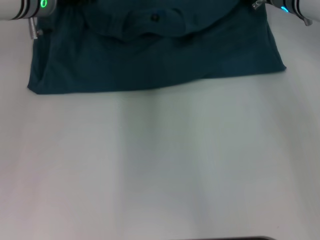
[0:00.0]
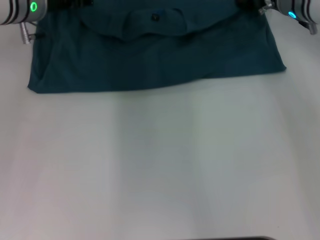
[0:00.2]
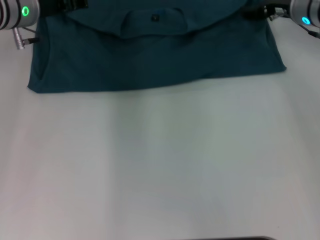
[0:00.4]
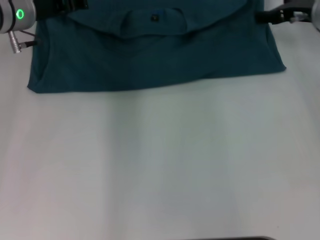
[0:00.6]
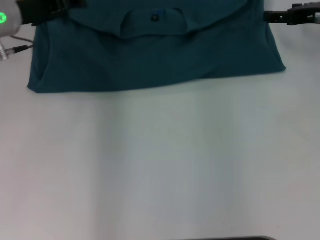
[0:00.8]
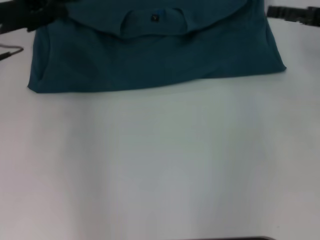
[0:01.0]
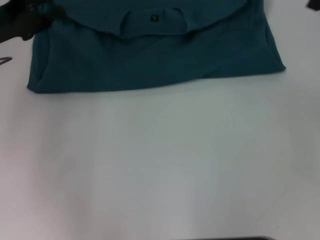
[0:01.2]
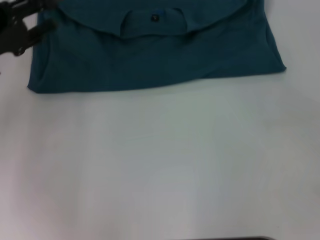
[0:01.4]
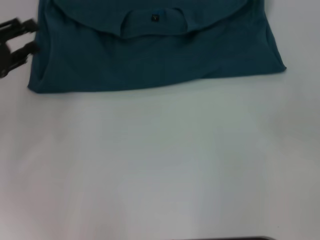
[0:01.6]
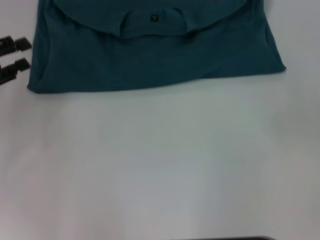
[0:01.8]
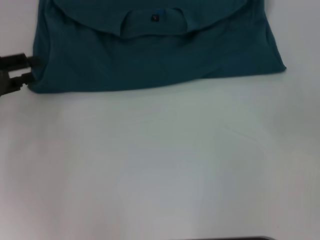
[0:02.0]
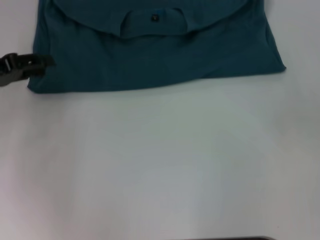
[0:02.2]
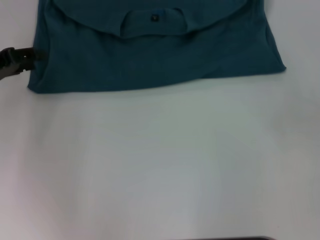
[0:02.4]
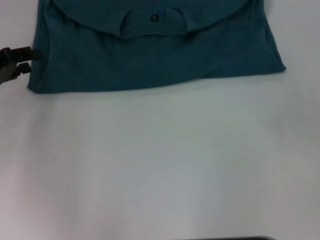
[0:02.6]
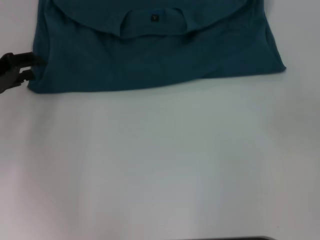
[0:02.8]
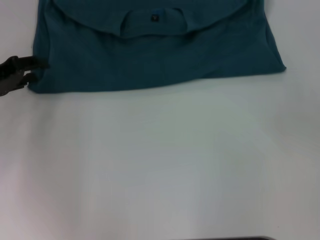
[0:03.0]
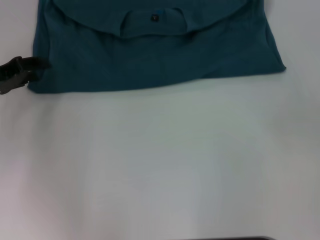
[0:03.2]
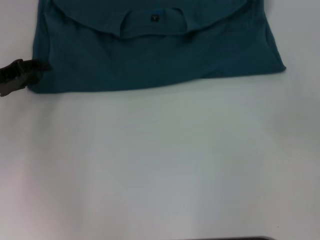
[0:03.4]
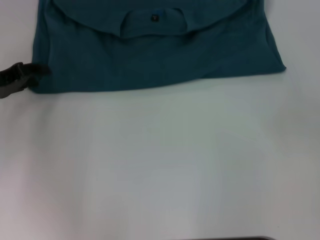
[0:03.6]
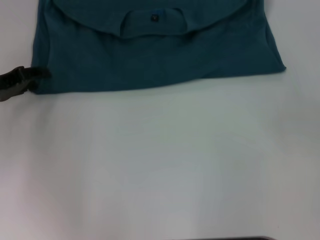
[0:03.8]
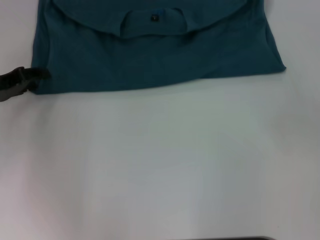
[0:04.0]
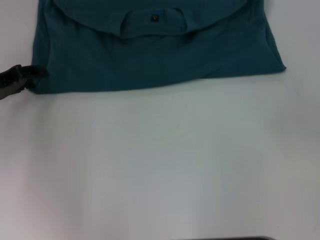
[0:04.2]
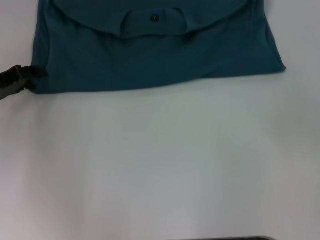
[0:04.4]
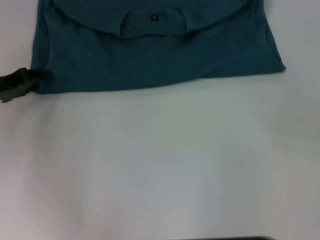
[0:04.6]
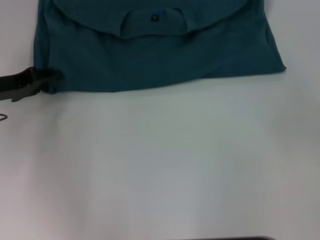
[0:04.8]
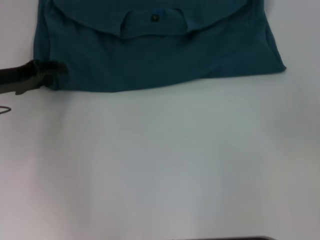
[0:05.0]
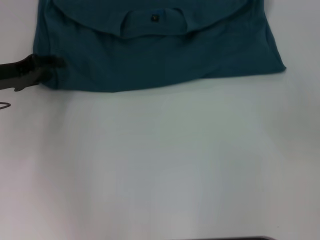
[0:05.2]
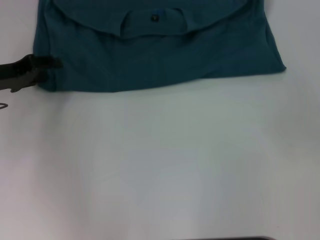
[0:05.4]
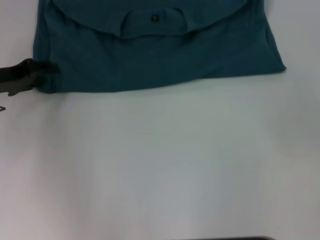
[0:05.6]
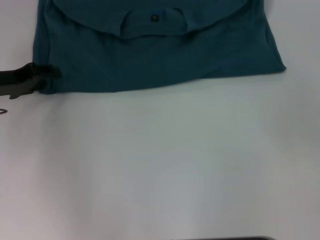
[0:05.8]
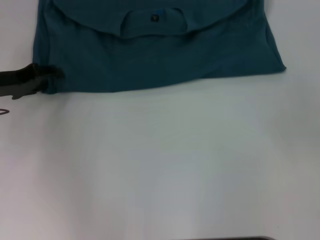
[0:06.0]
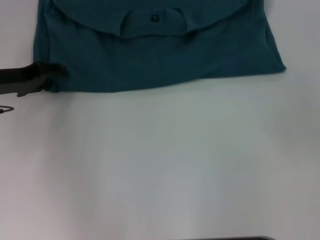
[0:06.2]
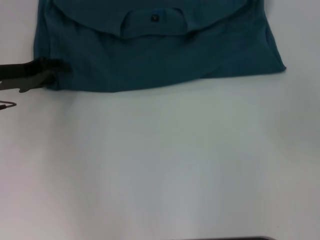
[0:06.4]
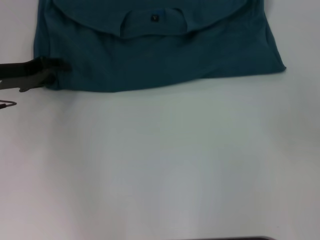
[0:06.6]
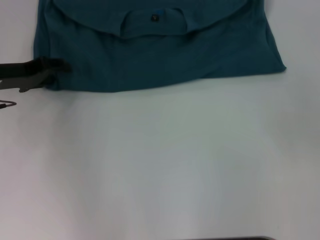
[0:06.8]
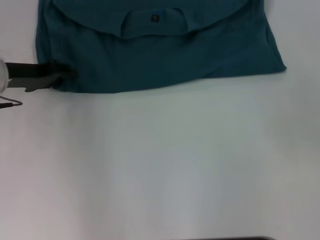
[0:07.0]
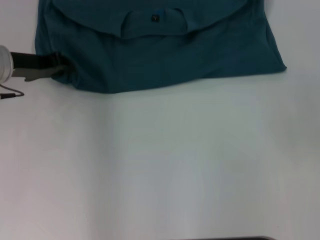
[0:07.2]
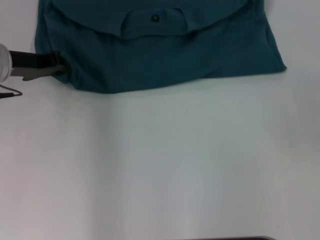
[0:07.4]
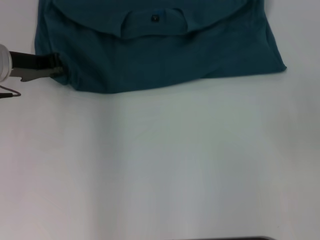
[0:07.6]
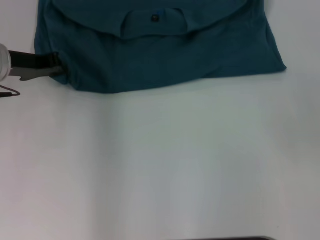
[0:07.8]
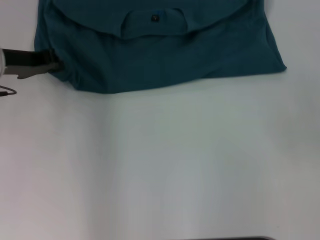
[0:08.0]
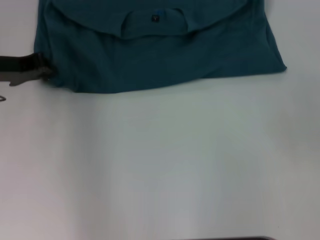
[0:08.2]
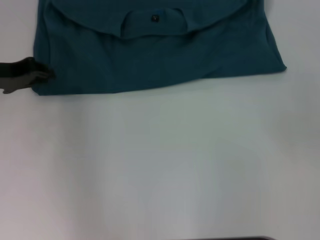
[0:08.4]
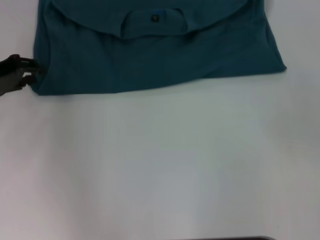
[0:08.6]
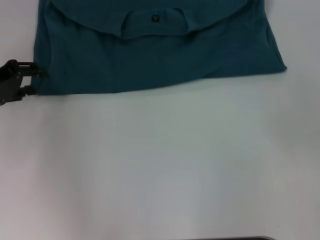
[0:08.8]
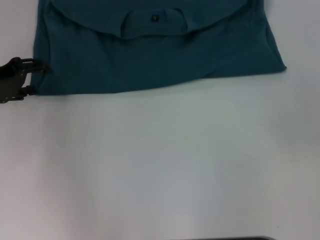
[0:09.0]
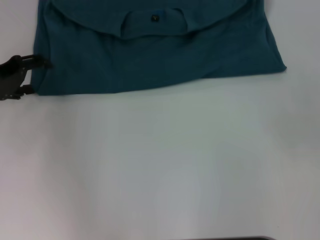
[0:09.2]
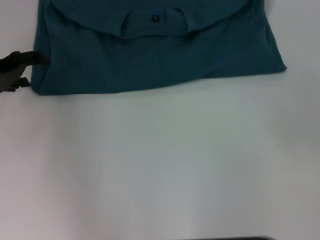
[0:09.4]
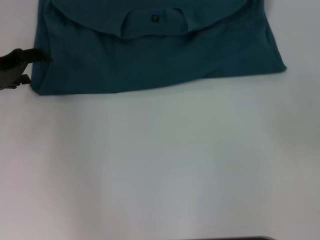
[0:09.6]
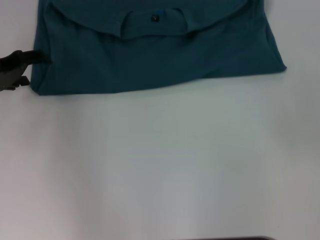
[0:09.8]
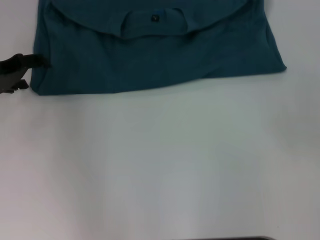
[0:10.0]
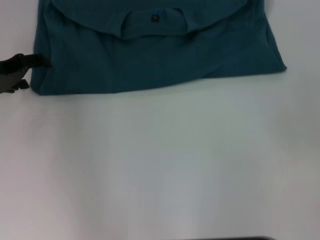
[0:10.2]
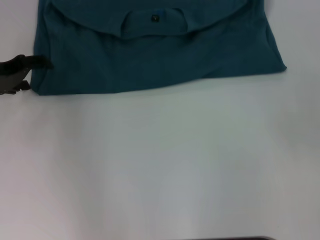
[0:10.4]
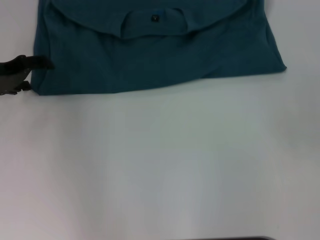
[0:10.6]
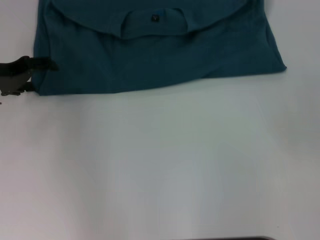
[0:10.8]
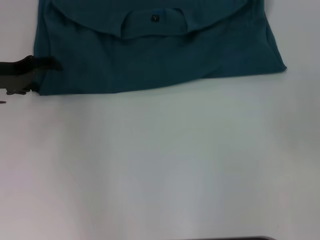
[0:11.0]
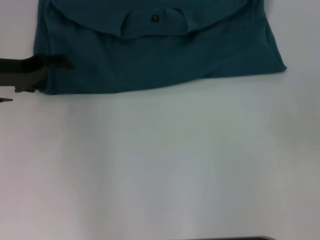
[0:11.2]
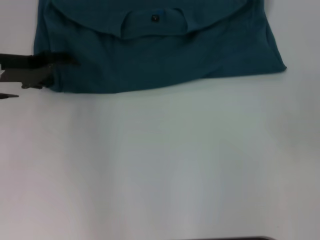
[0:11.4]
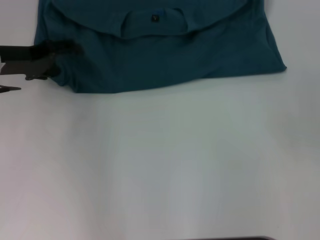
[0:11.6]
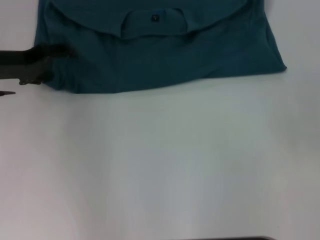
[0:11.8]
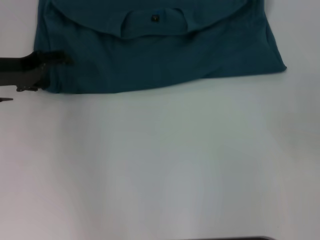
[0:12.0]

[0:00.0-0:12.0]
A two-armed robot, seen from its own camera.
0:00.0 to 0:01.6: The left gripper heads to the left and backward, covering roughly 20 cm; the right gripper heads backward and to the right, covering roughly 30 cm, and opens up.
0:06.0 to 0:07.6: The left gripper ends up about 5 cm from where it was, and closes its fingers.
0:07.6 to 0:09.0: The left gripper moves to the left, approximately 5 cm, and opens.
0:09.0 to 0:10.4: The left gripper opens.

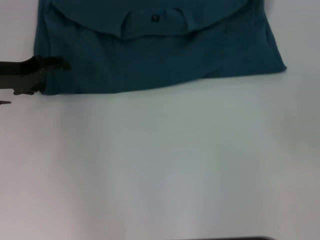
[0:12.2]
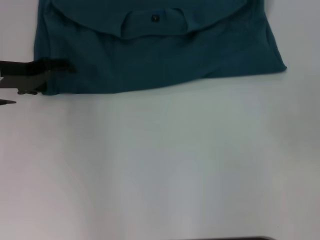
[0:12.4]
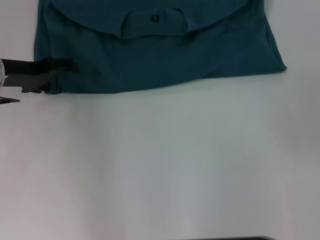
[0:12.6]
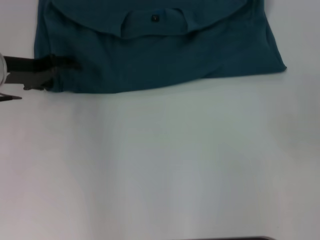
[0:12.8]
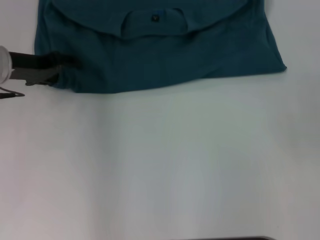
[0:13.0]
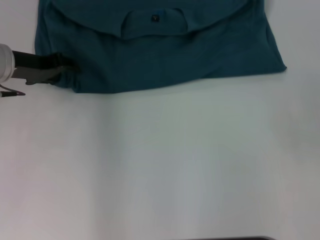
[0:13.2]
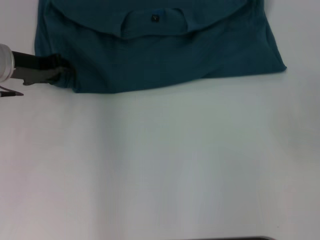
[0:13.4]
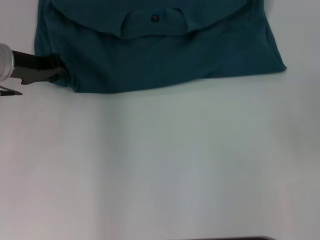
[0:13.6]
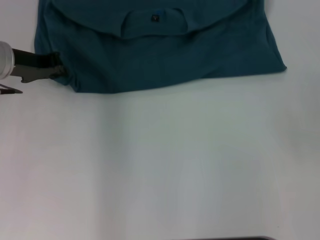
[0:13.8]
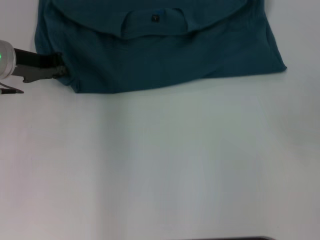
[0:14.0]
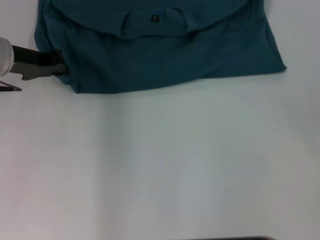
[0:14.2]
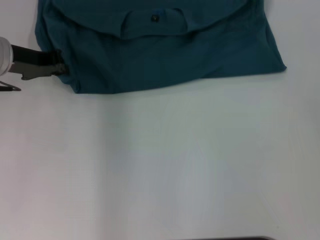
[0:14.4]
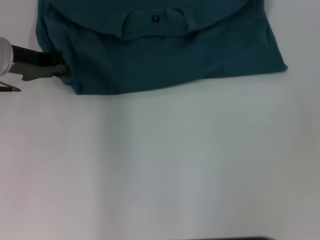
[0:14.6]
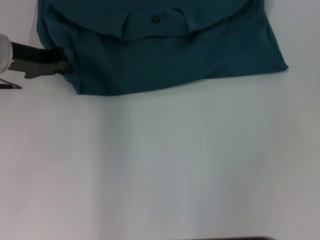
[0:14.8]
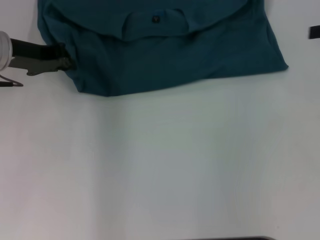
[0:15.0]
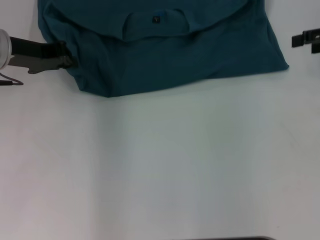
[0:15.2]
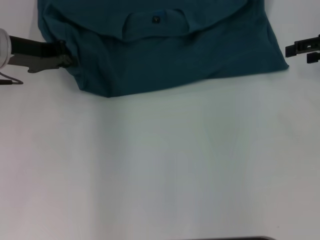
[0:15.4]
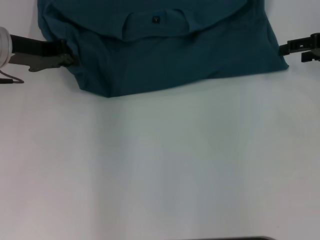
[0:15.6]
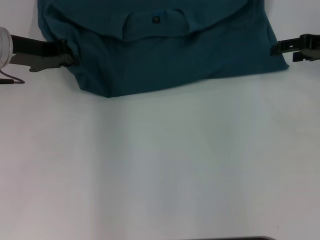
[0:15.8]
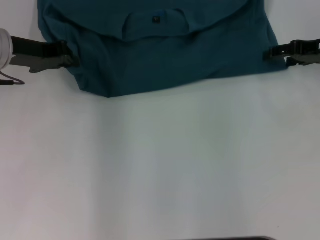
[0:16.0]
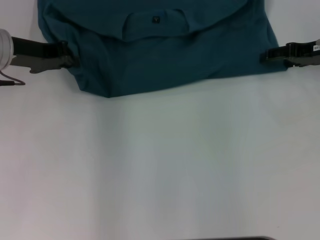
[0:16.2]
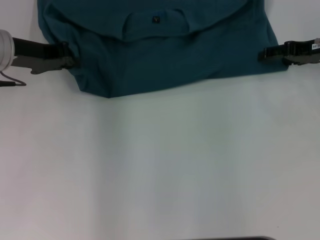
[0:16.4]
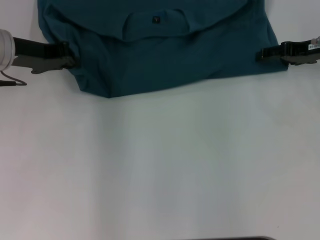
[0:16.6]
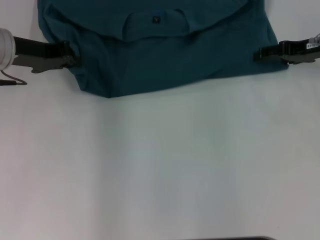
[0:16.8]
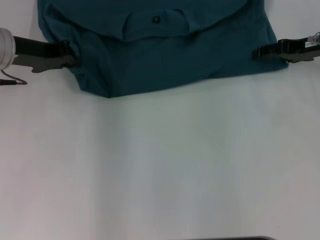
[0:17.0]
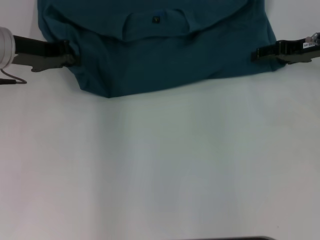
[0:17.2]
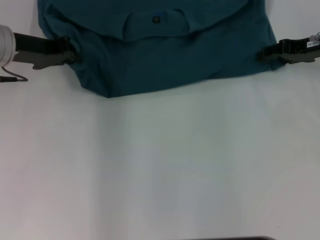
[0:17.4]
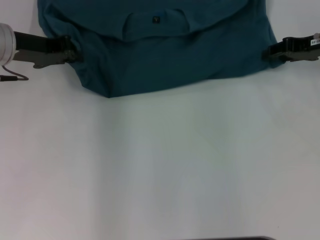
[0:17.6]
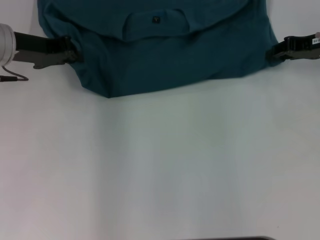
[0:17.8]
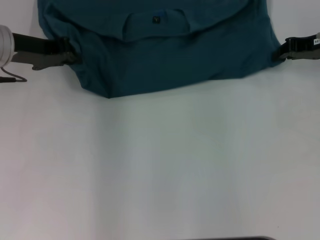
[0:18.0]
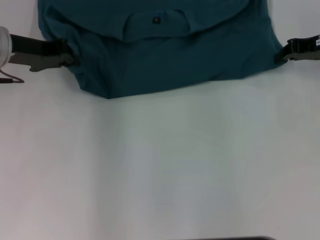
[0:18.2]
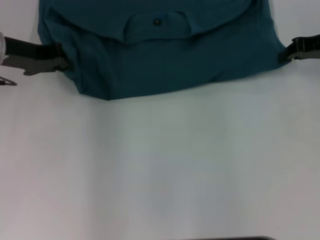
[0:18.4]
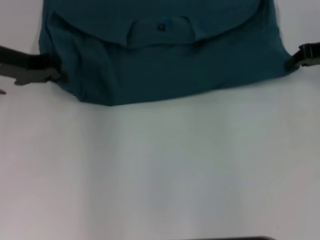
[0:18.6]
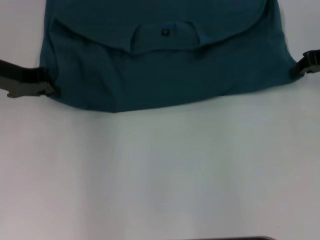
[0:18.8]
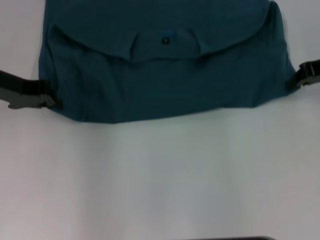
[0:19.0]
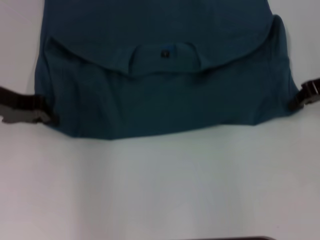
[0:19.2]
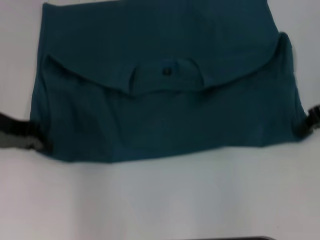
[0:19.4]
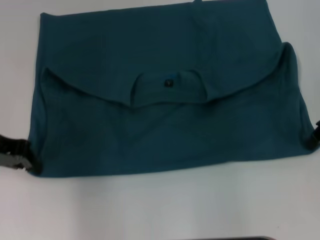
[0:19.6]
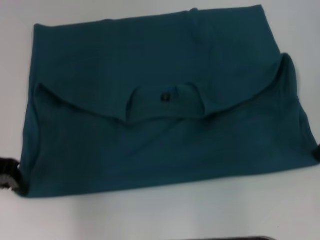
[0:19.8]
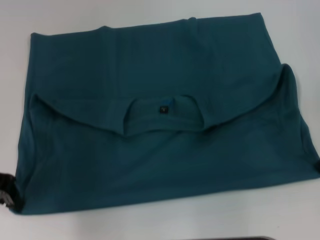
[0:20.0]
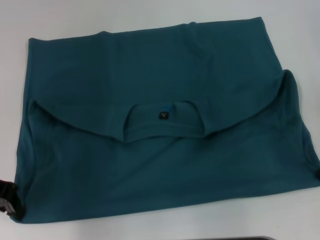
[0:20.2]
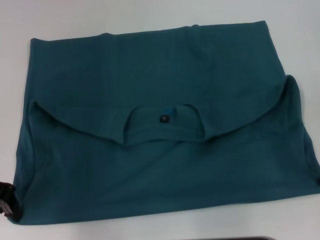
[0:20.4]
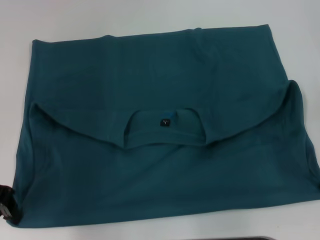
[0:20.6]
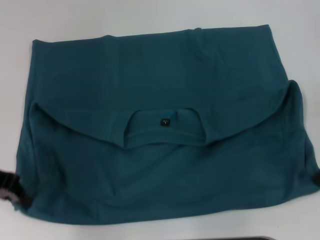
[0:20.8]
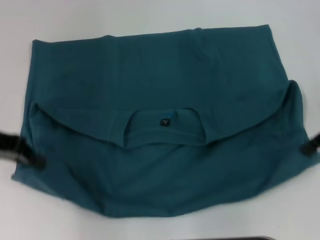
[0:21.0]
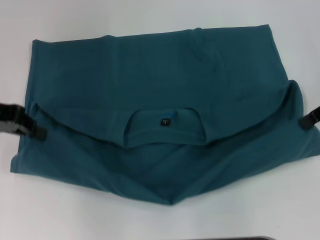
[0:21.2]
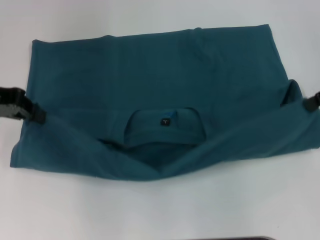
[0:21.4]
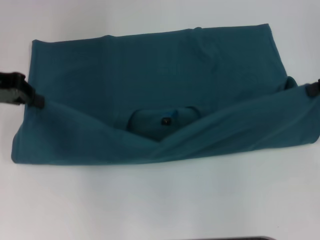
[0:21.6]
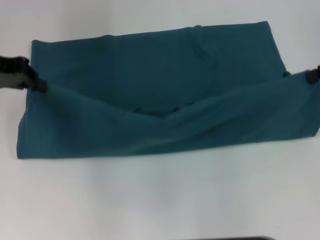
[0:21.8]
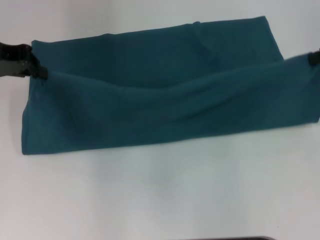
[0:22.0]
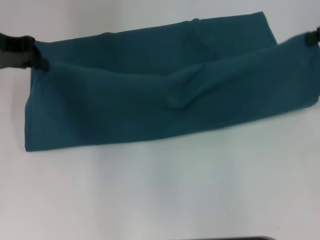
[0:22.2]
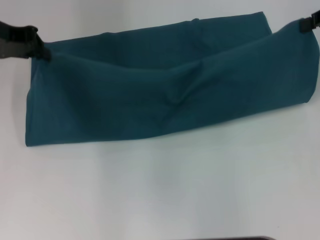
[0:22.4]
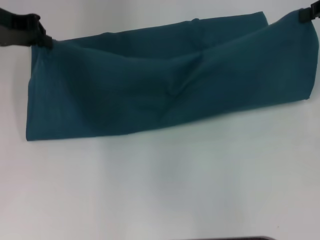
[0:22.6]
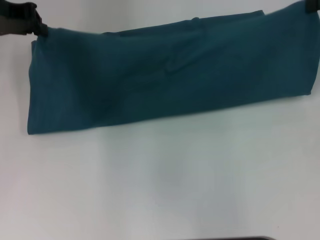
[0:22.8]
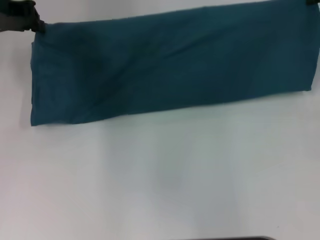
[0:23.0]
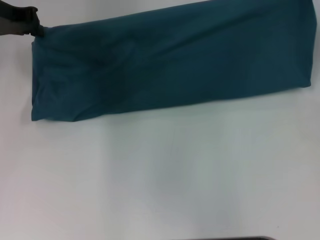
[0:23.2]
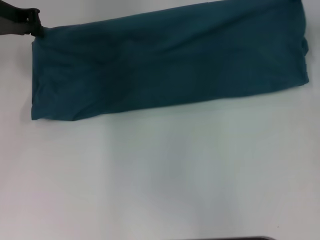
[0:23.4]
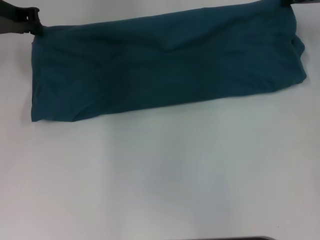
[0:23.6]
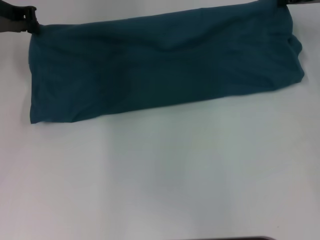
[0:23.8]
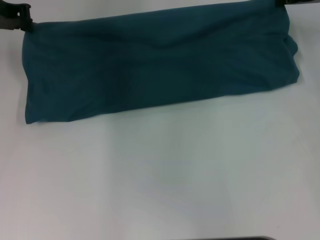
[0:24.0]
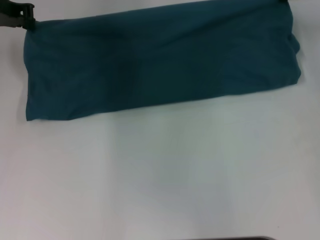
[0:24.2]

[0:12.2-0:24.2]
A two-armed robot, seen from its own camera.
Step, 0:12.2 to 0:20.6: Pull the clothes with your left hand.
Step, 0:12.2 to 0:20.6: Pull the clothes with your right hand.
0:12.2 to 0:13.8: The left gripper closes.
0:13.8 to 0:15.2: The right gripper is displaced forward by roughly 15 cm.
0:15.2 to 0:16.6: The right gripper moves to the left and downward, approximately 10 cm.
0:16.6 to 0:18.2: The right gripper closes up.
0:18.2 to 0:19.8: The right gripper shifts approximately 5 cm backward, while the left gripper moves backward and to the left, about 10 cm.
0:21.2 to 0:22.6: The right gripper moves forward, about 5 cm; the left gripper travels forward by some 10 cm.
0:22.6 to 0:24.2: The right gripper travels downward and forward by about 10 cm.
